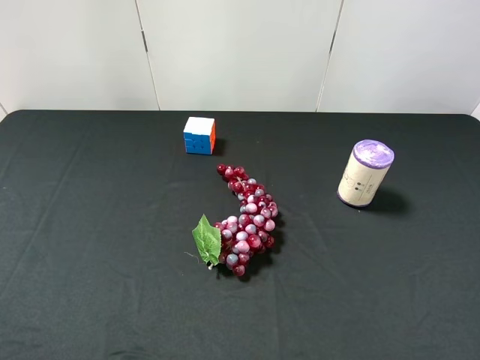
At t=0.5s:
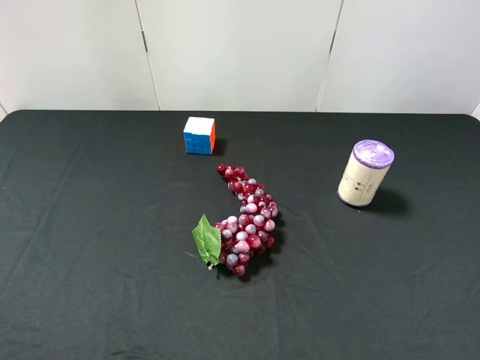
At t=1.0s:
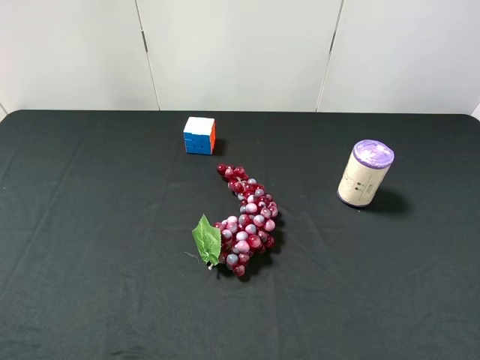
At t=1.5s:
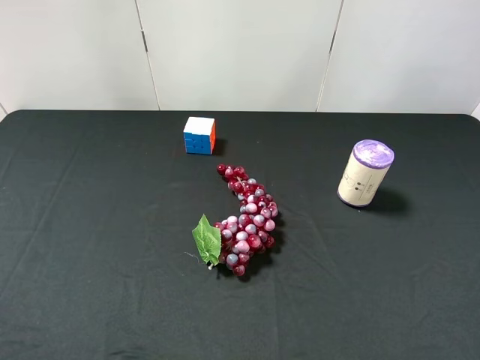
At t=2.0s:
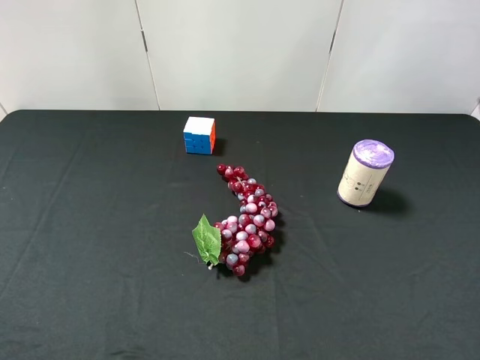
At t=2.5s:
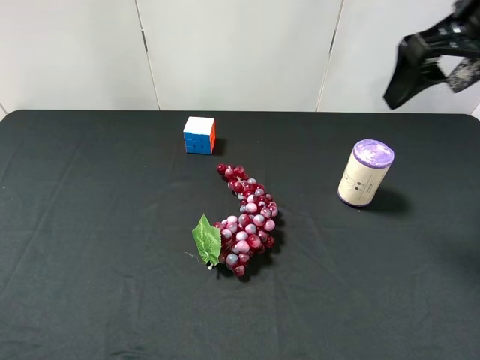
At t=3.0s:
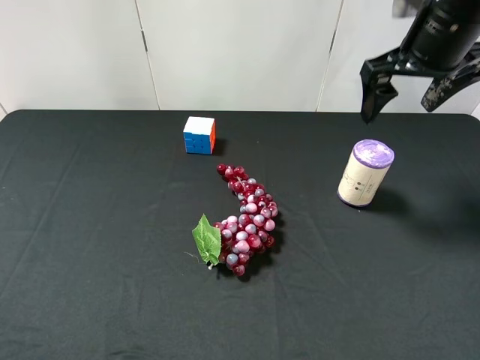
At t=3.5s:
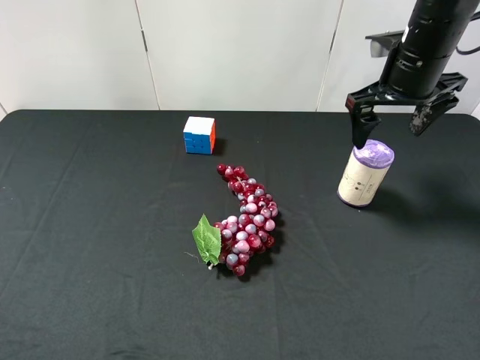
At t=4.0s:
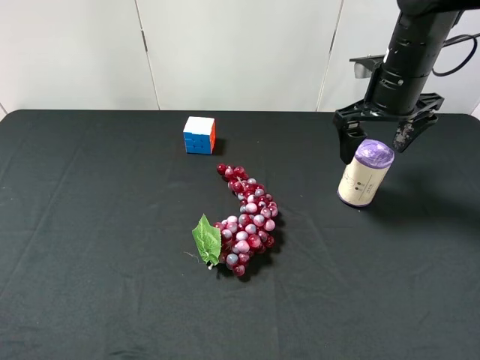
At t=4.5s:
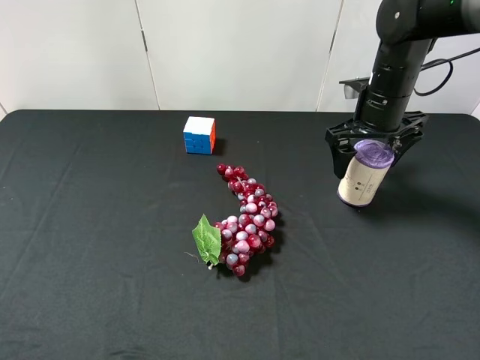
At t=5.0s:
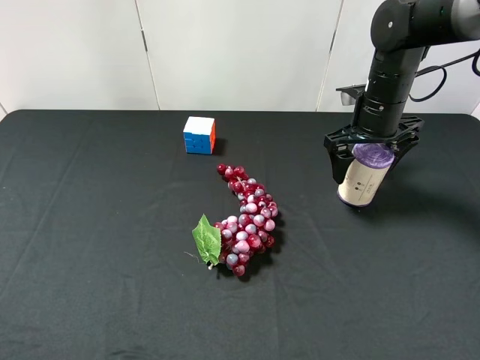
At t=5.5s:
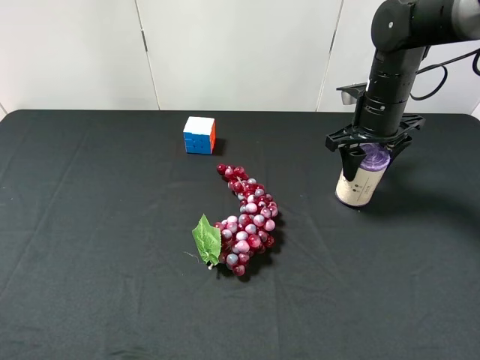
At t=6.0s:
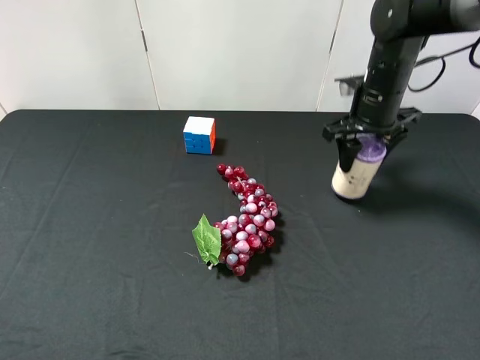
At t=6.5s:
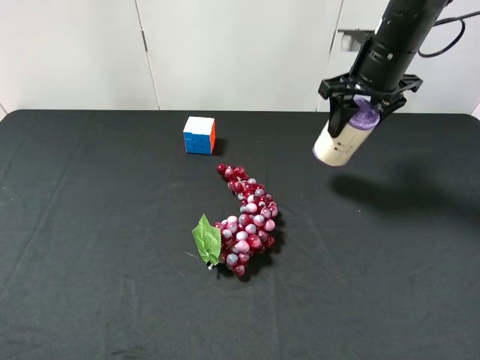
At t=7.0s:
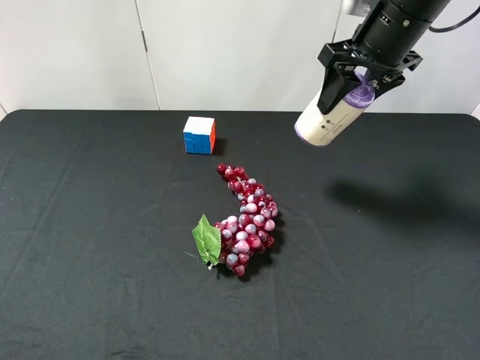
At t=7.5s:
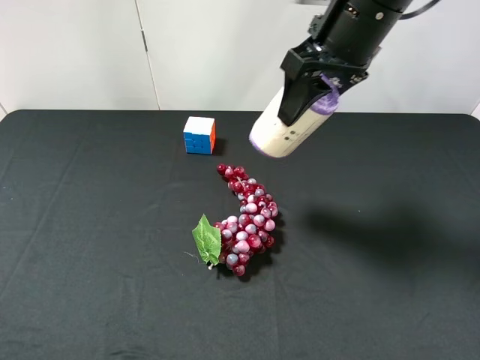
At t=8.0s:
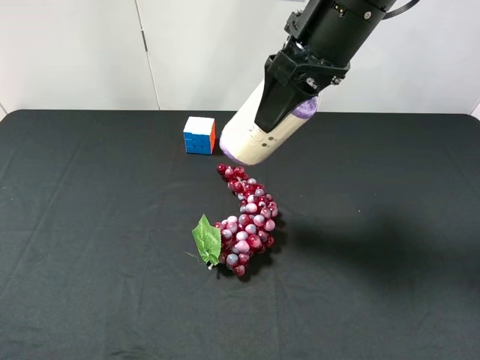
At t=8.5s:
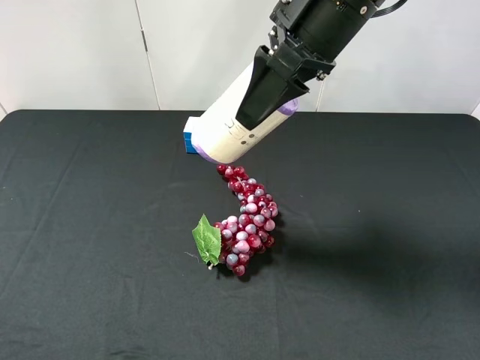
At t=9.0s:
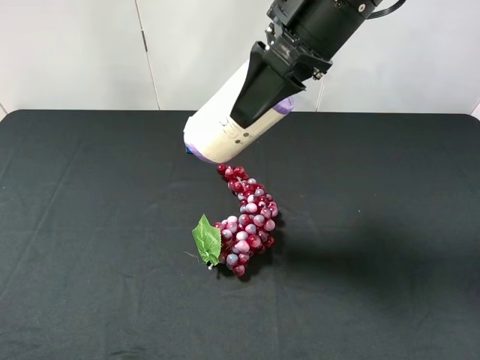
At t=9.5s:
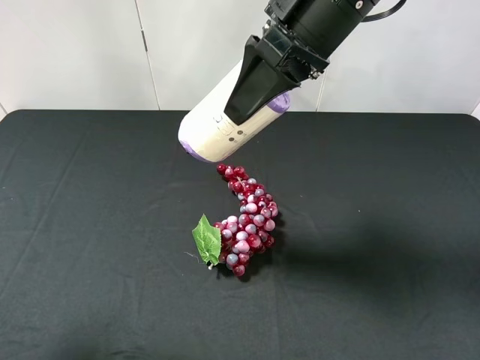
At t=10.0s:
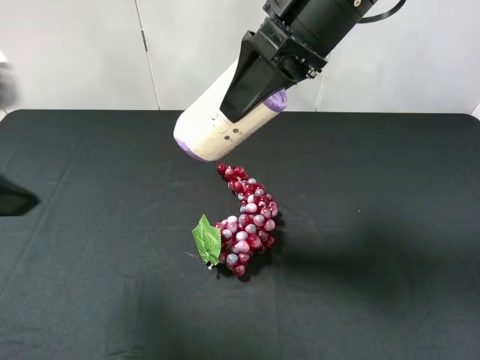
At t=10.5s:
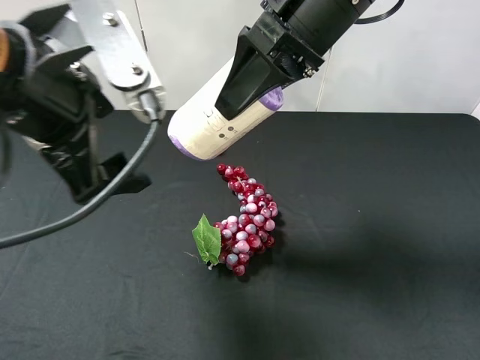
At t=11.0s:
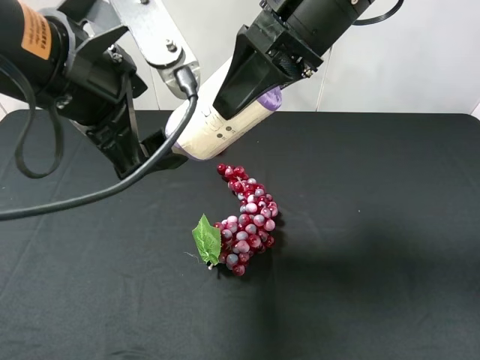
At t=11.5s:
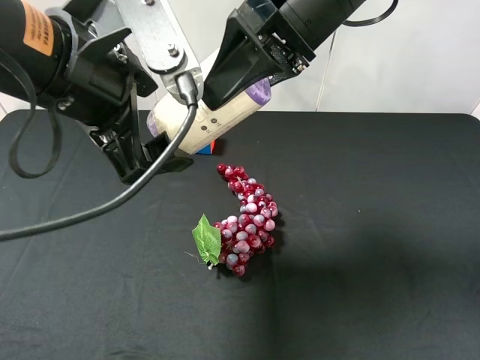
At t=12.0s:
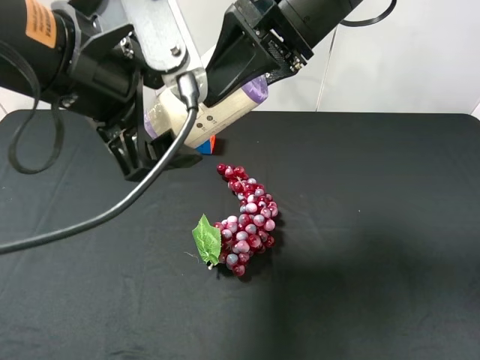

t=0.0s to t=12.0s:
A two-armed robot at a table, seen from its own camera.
Task of the whole recording: use the right gripper to pick up the item and transfer it from the right gripper to the left gripper.
Step, t=0.0s to t=5.5s: Use the right gripper to grab the purple garbage bag on the right side of the table.
t=2.0s to t=4.0s: The right gripper shifts roughly 25 cm forward and downward.
t=4.0s to t=6.0s: The right gripper closes up.
t=6.0s to t=8.0s: The right gripper goes roughly 20 cm upward, to the left and backward.
t=8.0s to t=10.0s: The left gripper goes about 20 cm forward and to the right.
t=10.0s to t=12.0s: The left gripper is displaced to the right by some 10 cm.

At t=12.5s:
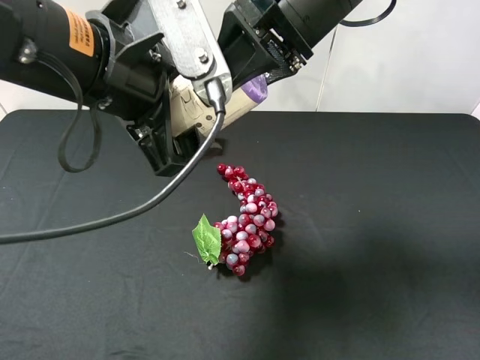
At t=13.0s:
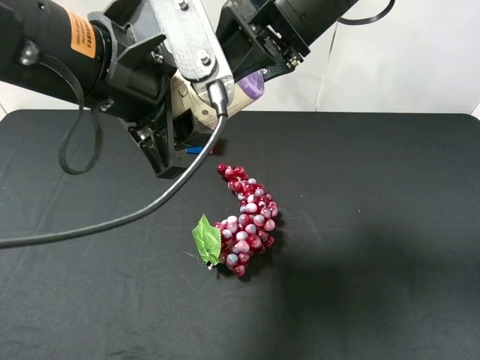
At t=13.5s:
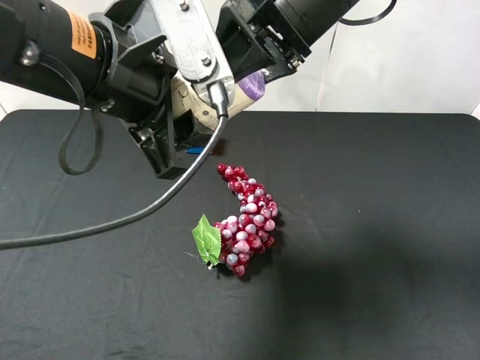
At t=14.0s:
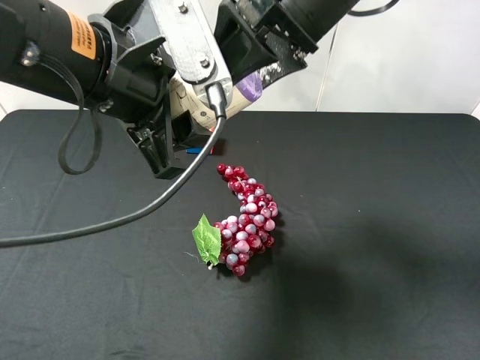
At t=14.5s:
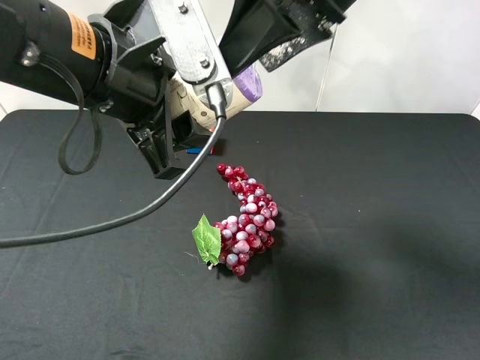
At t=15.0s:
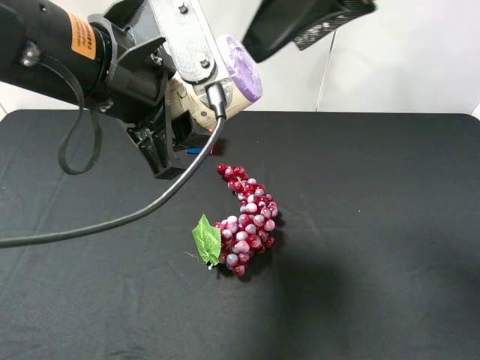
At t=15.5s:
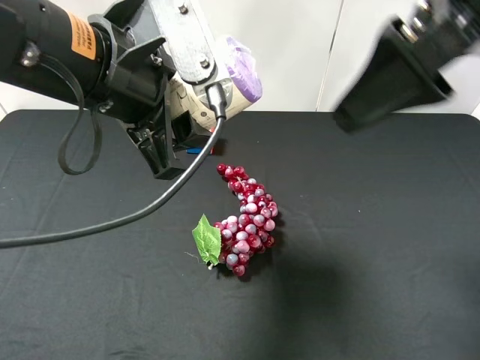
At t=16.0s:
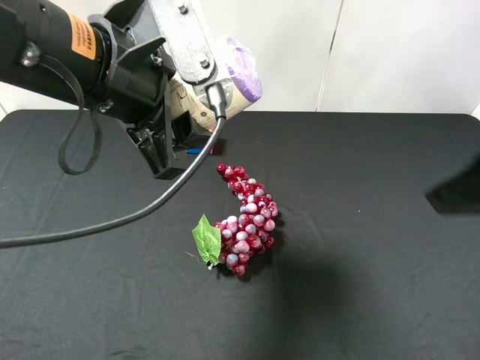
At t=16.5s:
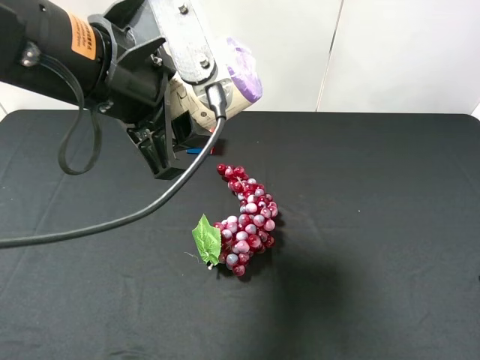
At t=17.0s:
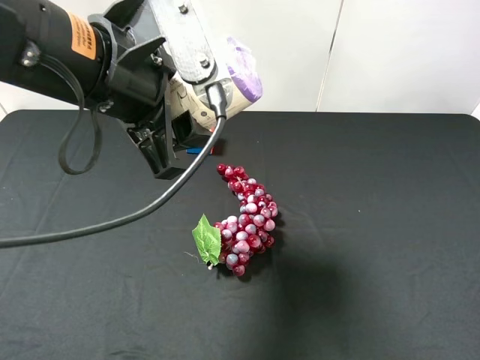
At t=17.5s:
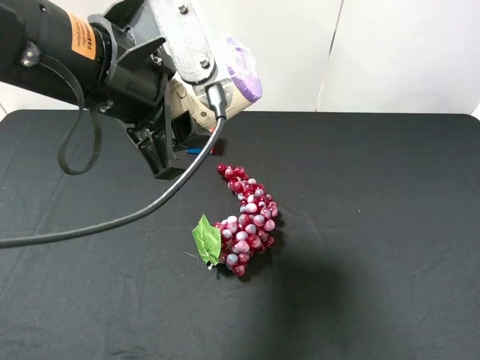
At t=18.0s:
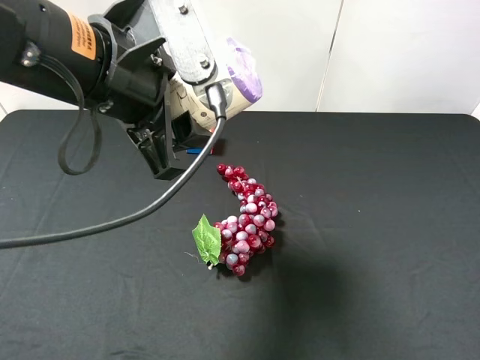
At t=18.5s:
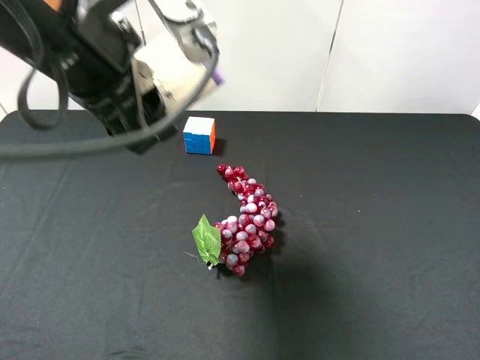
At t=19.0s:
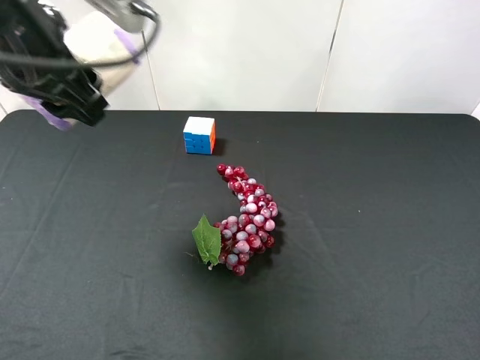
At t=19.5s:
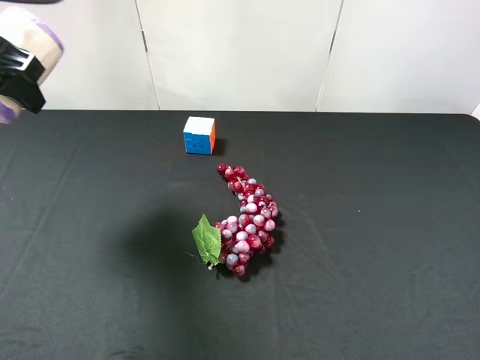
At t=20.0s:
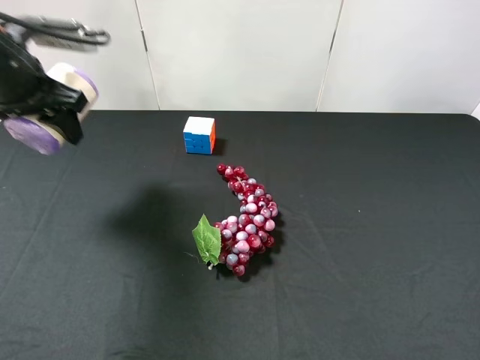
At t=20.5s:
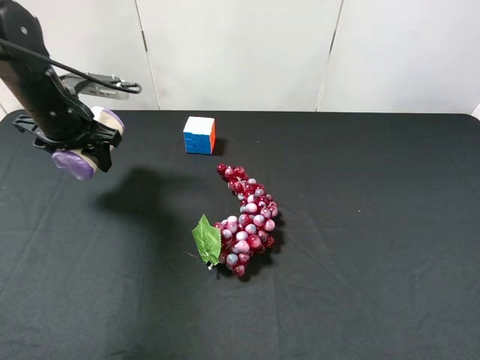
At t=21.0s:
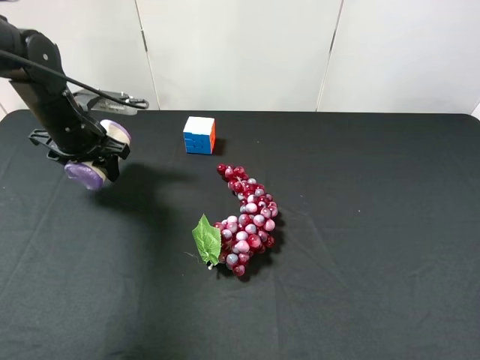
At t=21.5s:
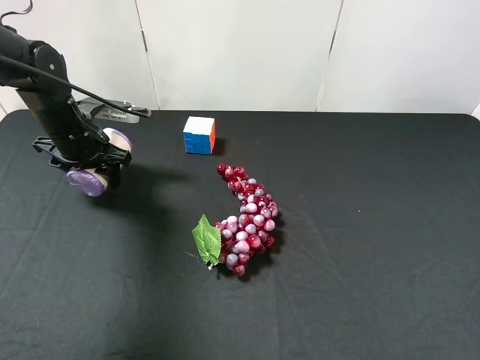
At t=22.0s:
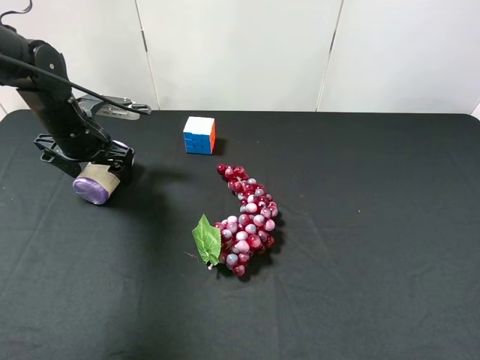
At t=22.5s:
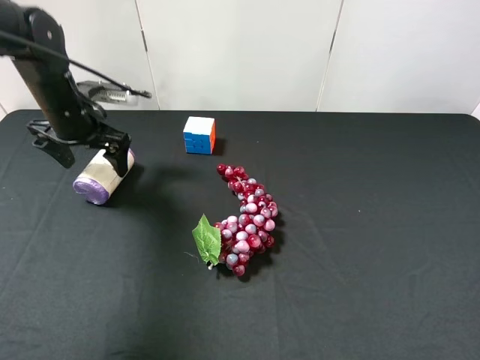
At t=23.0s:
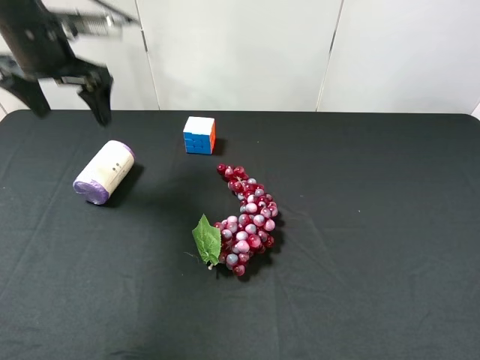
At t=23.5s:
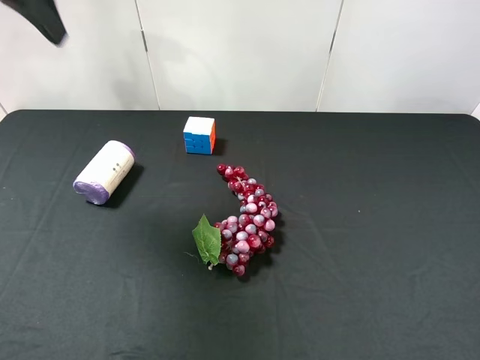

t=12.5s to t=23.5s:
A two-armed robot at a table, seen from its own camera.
Task of the whole recording: use the right gripper to pick up the item and transfer it from the right gripper to the left gripper.
Step, t=14.5s to t=21.5s: The left gripper places purple garbage bag on the left side of the table.
t=12.5s to t=14.5s: The left gripper closes its fingers. Meanwhile the right gripper opens up.
t=14.5s to t=16.0s: The right gripper travels backward and to the right by about 20 cm.
t=16.0s to t=18.0s: The right gripper travels backward, to the right and downward by approximately 15 cm.
t=18.0s to t=20.0s: The left gripper moves to the left and forward, approximately 20 cm.
t=20.0s to t=21.5s: The left gripper goes roughly 10 cm downward, and opens up.
t=21.5s to t=23.5s: The left gripper shifts approximately 25 cm upward, and opens.

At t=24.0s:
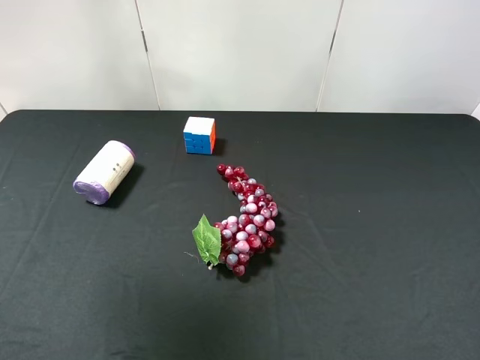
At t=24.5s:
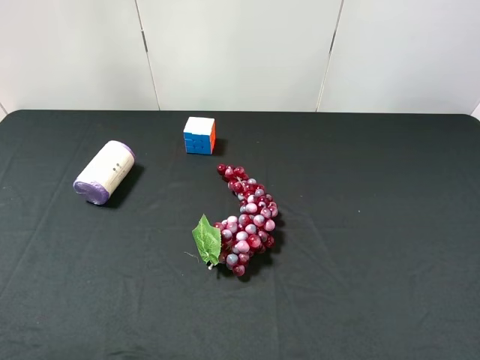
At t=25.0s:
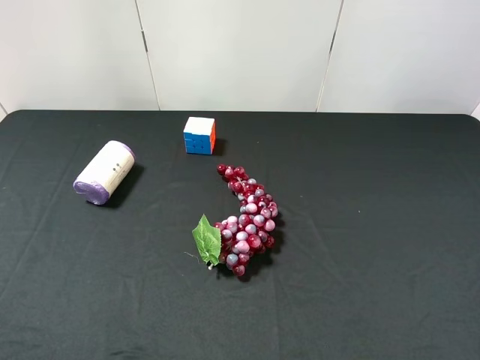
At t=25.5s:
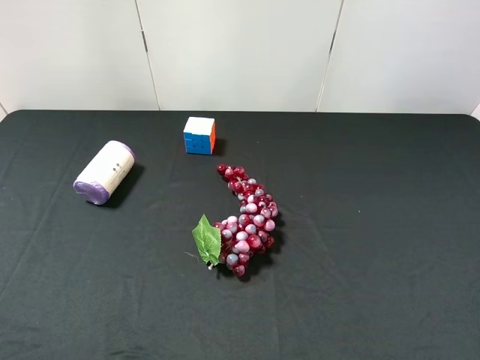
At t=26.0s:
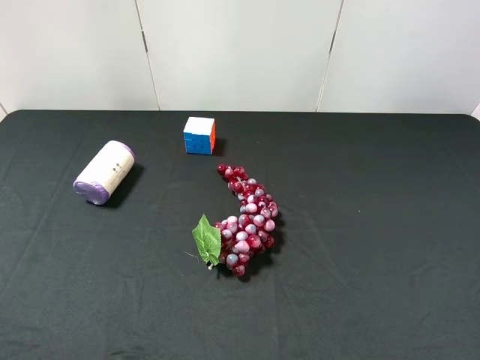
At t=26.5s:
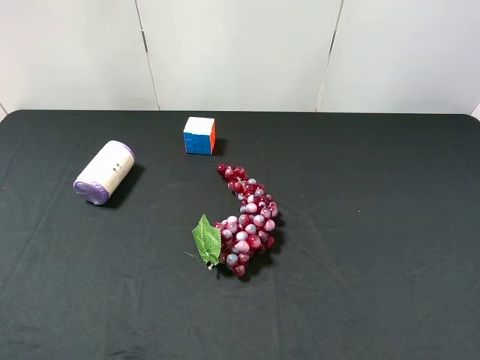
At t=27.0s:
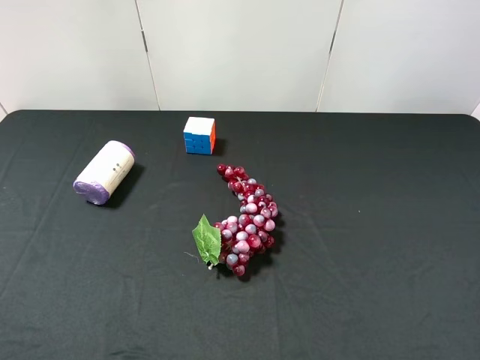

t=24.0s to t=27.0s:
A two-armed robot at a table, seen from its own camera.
Task of the whole recording: use the right gripper to pick up the item and transfer it from the right gripper to the left gripper.
t=24.0s to t=25.5s: The left gripper is displaced backward and downward by about 25 cm.
